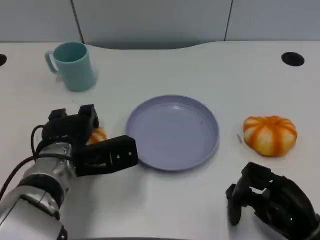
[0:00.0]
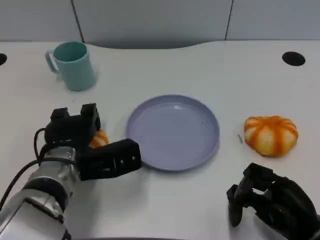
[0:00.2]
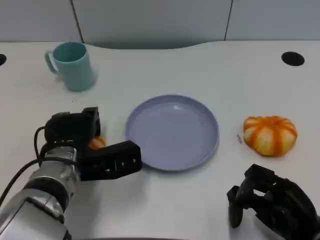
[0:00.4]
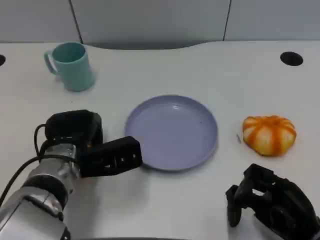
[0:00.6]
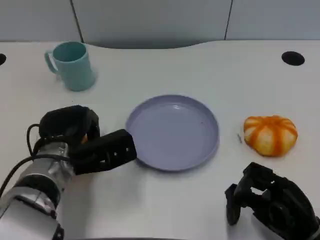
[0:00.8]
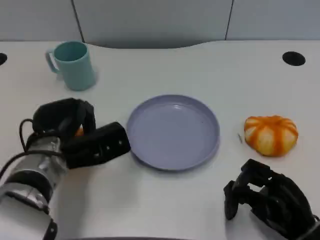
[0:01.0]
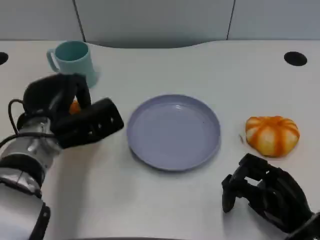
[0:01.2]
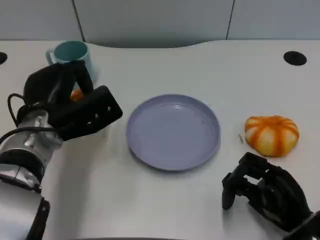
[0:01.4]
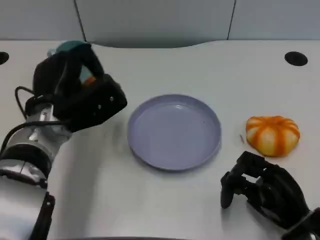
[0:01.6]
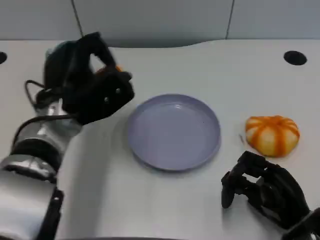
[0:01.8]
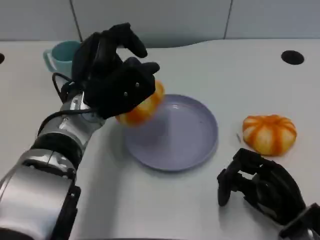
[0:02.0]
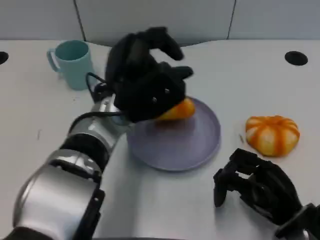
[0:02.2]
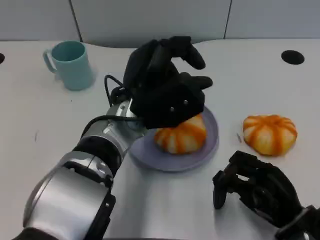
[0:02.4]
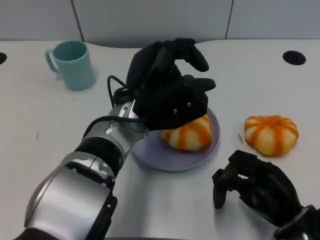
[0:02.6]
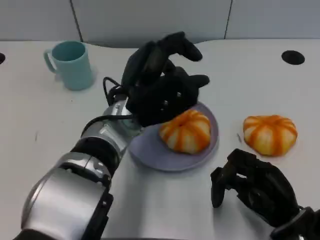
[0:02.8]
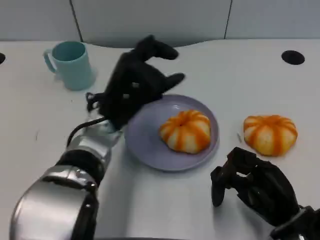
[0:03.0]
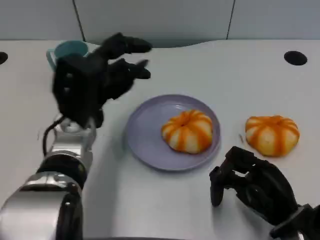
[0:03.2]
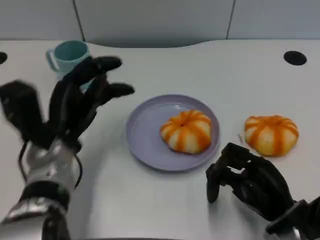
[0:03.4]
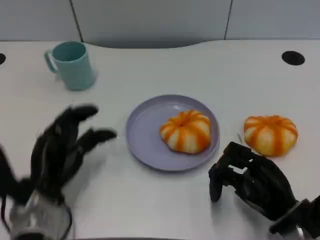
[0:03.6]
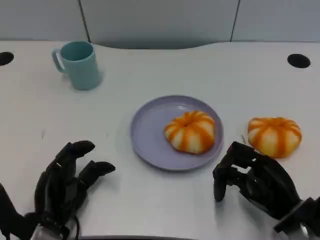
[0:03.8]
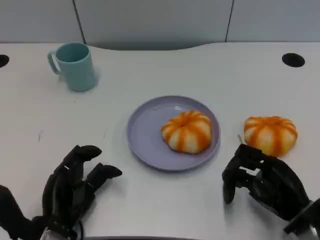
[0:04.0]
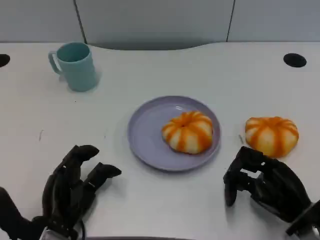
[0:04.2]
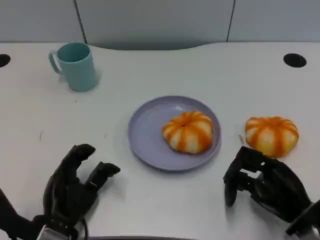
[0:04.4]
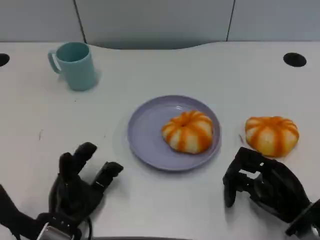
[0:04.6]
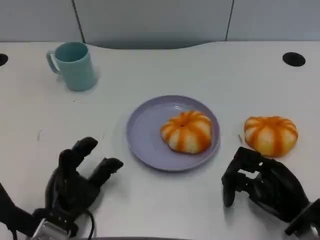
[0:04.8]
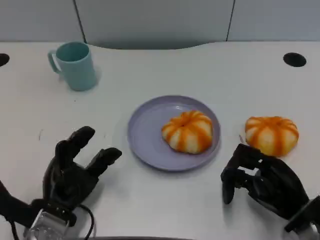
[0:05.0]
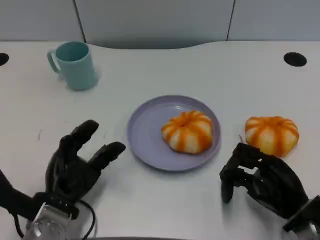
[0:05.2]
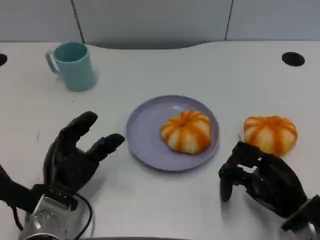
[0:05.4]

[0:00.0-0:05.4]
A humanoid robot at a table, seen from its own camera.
Task of the whole recording: Grasp the bread from the table and place it into the plate.
0:00.0 to 0:01.4: The left hand shifts by roughly 5 cm.
0:01.4 to 0:02.8: The left hand travels to the right by about 10 cm.
0:02.8 to 0:04.0: The left hand shifts roughly 20 cm downward, to the left and backward.
0:04.0 to 0:05.4: There are only small adjustments of the hands.

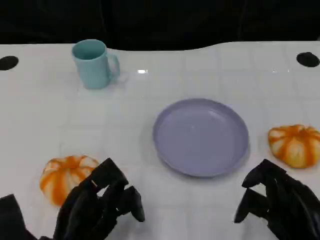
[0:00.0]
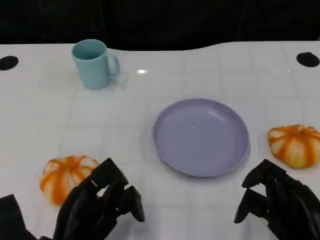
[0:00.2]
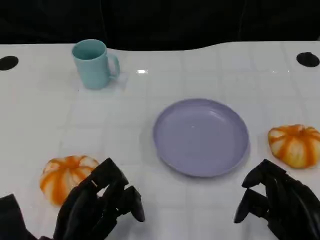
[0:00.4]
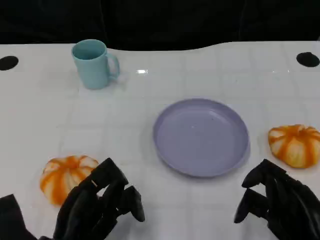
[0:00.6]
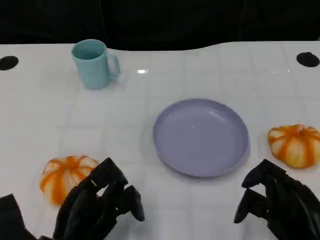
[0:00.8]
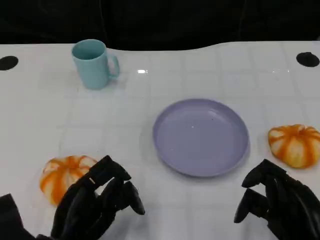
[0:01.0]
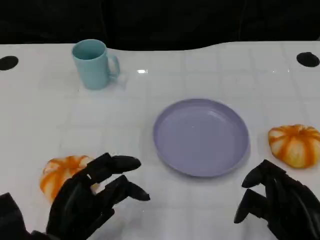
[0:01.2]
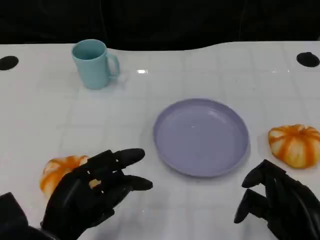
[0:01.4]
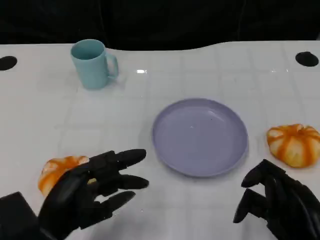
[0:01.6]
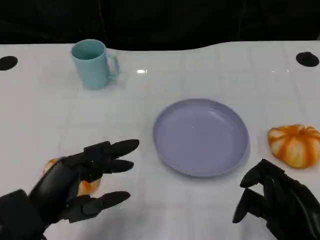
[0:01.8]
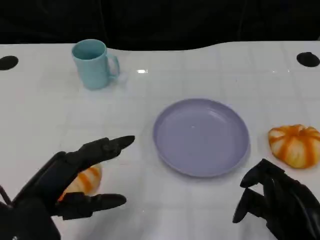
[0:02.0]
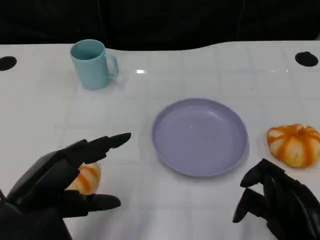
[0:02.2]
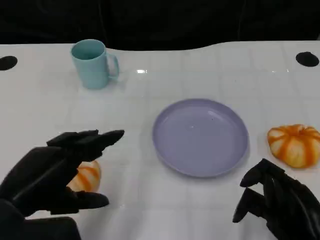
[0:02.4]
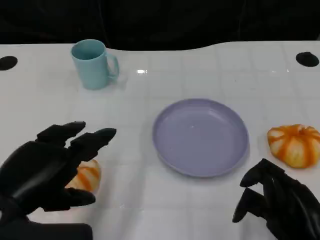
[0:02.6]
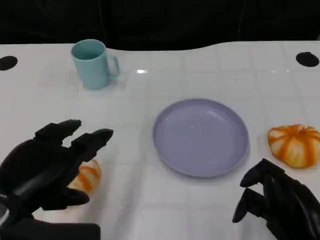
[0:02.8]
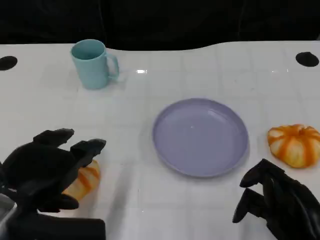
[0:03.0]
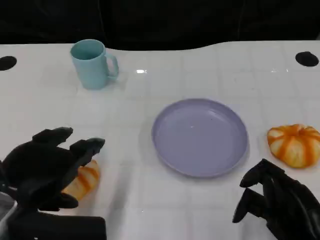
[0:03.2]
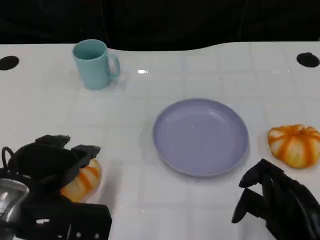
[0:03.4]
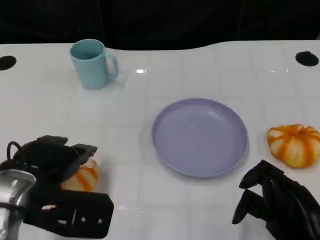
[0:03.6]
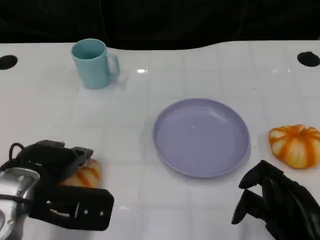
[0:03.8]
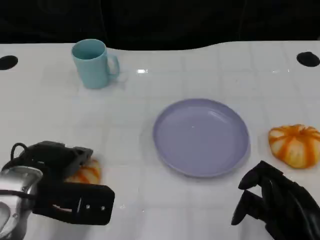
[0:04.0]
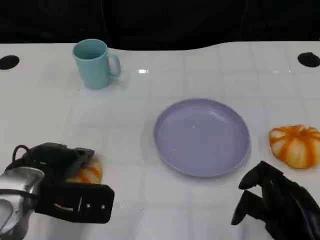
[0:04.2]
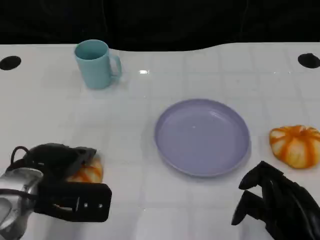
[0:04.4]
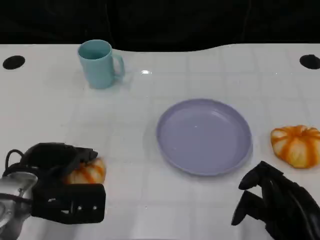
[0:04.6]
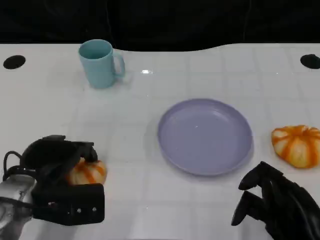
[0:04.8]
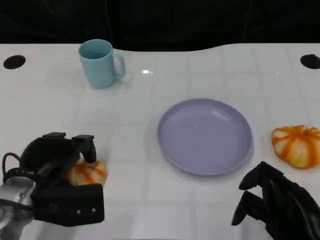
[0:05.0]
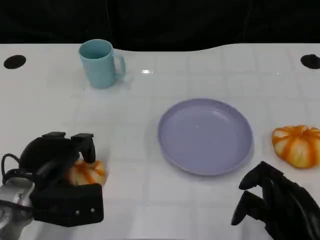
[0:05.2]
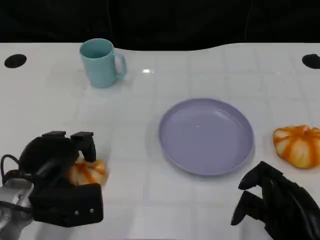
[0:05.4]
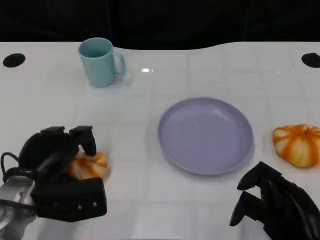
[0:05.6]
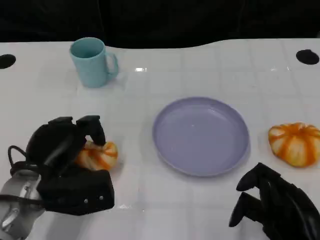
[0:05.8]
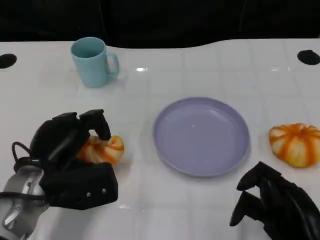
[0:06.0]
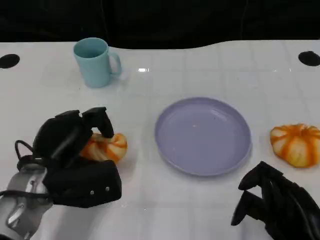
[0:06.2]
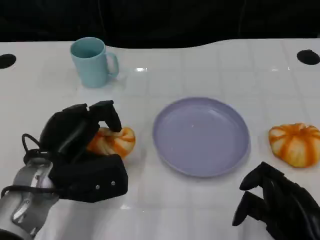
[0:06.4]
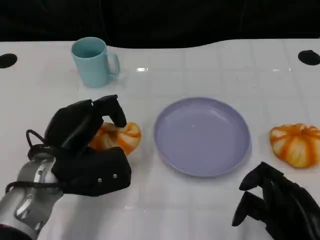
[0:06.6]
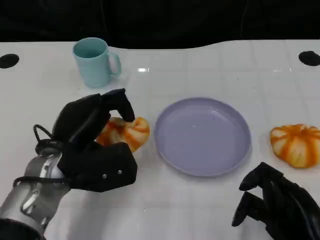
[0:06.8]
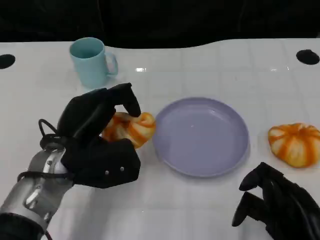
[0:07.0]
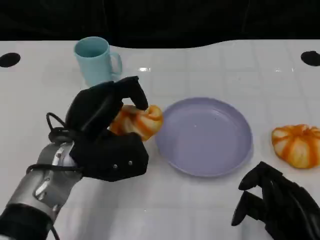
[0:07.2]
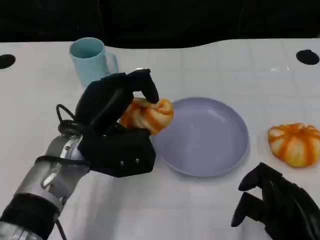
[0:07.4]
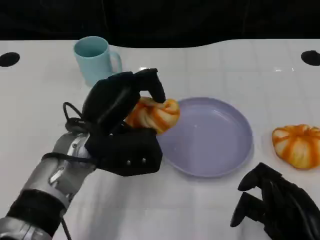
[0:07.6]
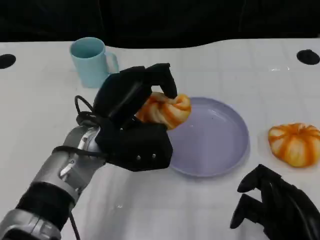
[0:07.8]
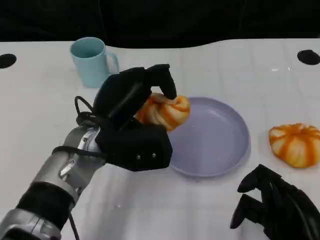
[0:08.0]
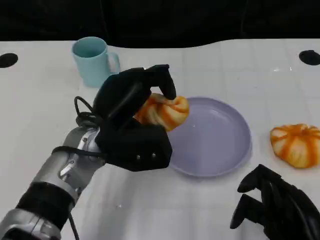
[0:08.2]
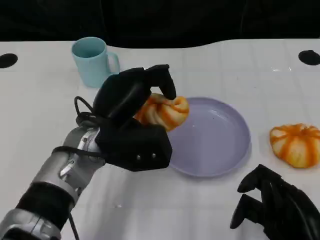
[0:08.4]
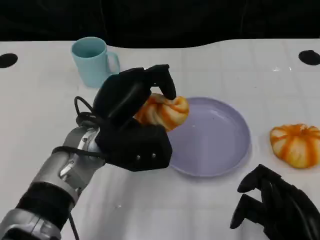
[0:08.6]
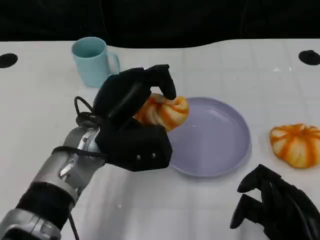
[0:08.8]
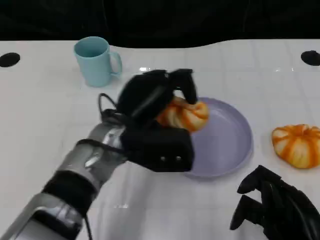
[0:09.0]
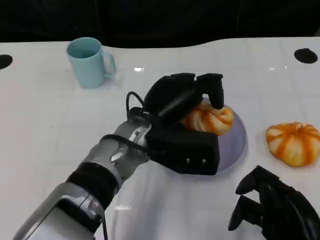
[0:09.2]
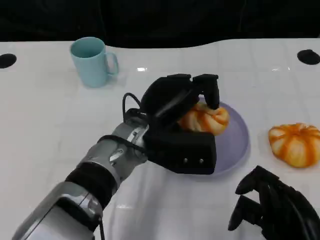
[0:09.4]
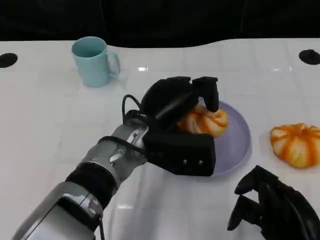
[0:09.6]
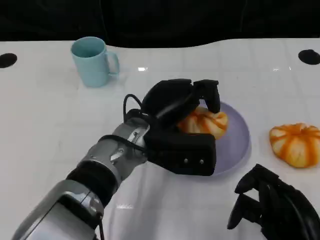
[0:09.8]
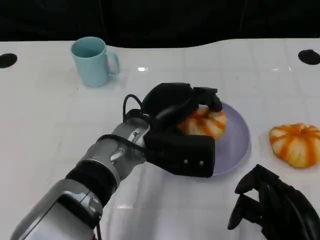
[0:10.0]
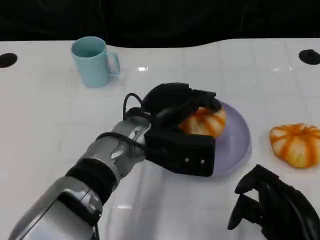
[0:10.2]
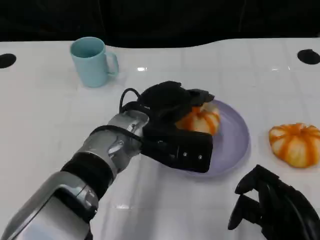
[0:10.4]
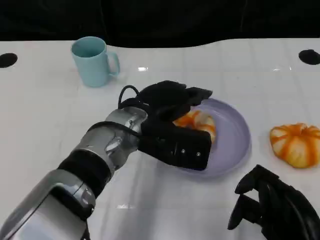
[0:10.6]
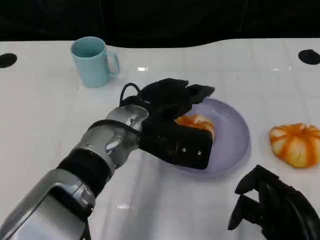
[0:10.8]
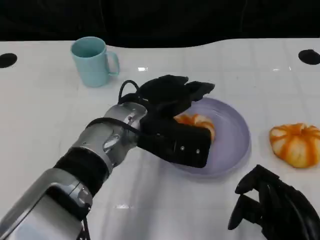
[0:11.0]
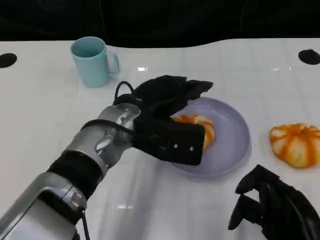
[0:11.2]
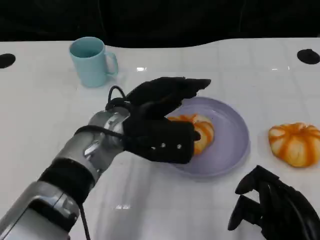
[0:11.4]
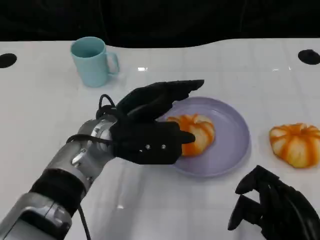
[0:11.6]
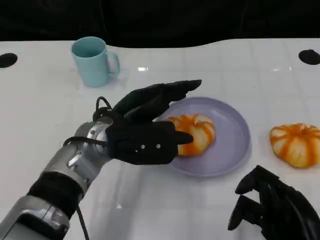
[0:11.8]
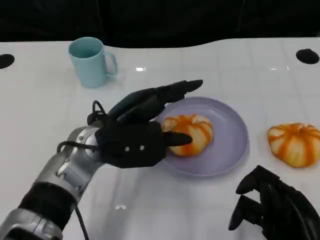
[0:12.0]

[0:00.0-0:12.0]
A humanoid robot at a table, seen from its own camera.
Task of the whole recording: Grasp the bread from the table and place it into the plate.
0:01.6 to 0:03.0: The left hand shifts approximately 10 cm upward.
0:03.0 to 0:04.4: The left hand moves forward and downward, about 10 cm.
0:06.0 to 0:07.6: The left hand shifts approximately 10 cm to the right.
0:07.6 to 0:09.0: The left hand shifts approximately 5 cm to the right.
0:10.4 to 0:12.0: The left hand is displaced to the left by some 5 cm.

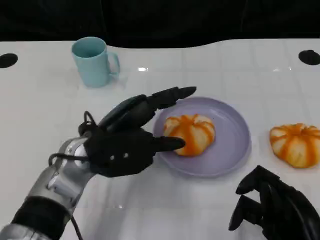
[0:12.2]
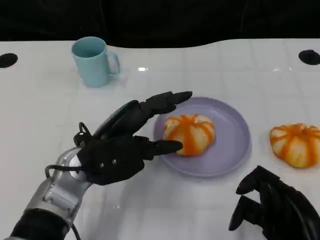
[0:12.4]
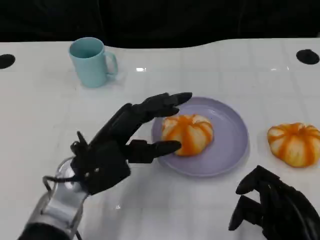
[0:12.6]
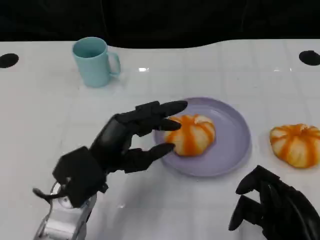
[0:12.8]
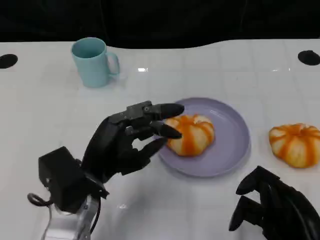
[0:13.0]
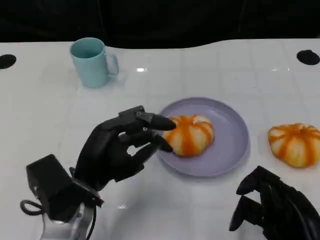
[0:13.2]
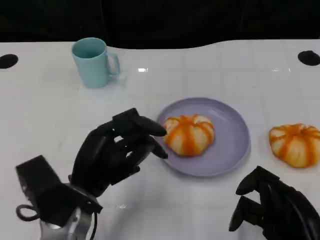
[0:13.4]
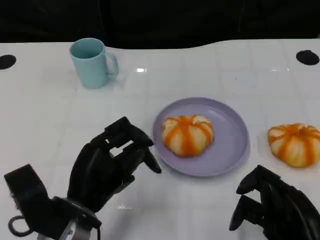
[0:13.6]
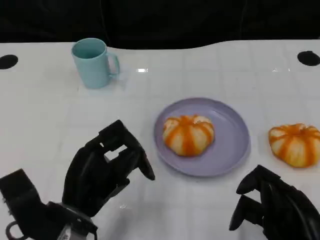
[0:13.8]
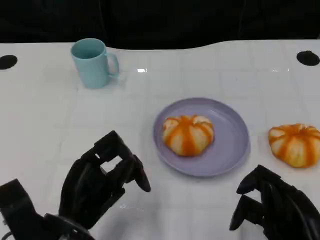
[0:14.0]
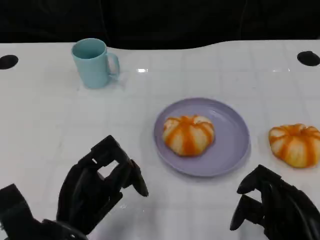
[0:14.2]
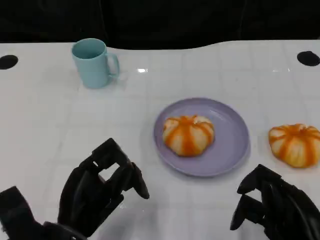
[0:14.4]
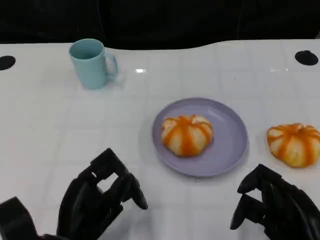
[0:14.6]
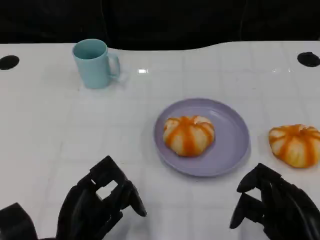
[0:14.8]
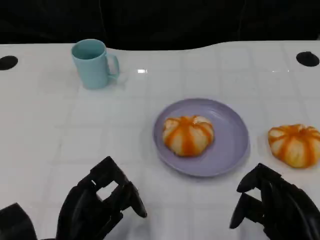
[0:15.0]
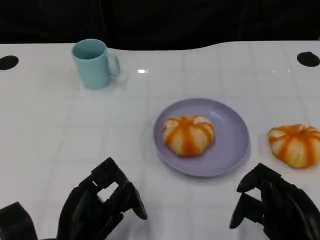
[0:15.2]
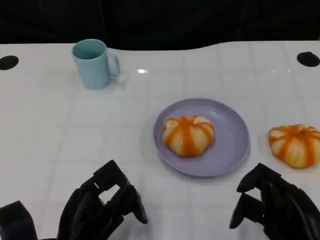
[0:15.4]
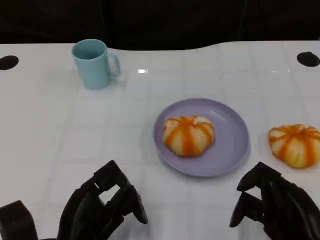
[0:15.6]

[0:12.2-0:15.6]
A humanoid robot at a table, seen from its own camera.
Task of the whole recording: Grasp the bread from the table and place it into the plate.
0:12.2 to 0:13.8: The left hand shifts roughly 10 cm backward.
0:13.8 to 0:15.6: The hands stay close to where they were, moving slightly.

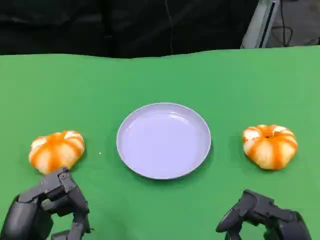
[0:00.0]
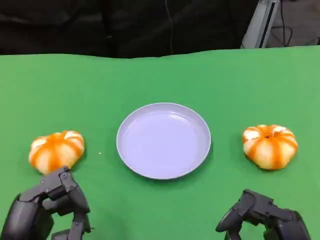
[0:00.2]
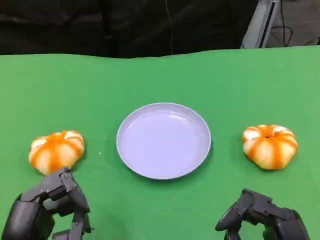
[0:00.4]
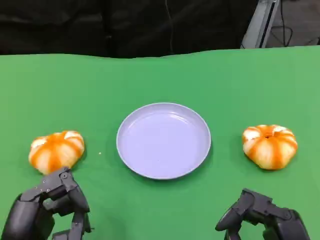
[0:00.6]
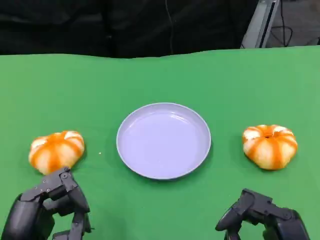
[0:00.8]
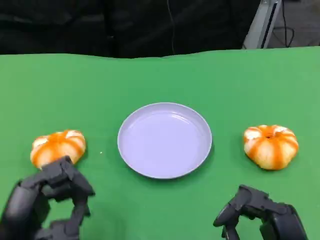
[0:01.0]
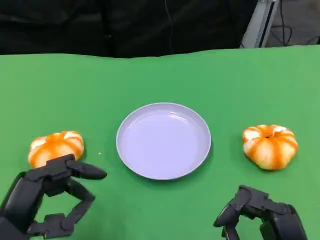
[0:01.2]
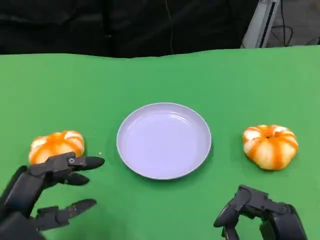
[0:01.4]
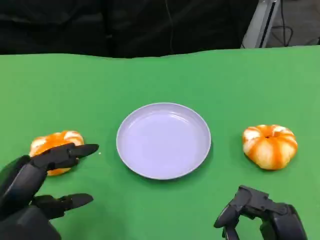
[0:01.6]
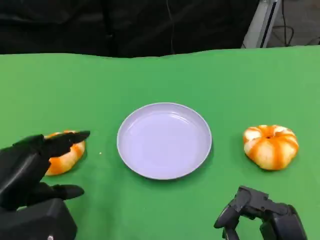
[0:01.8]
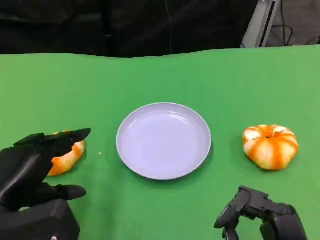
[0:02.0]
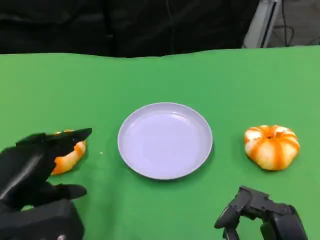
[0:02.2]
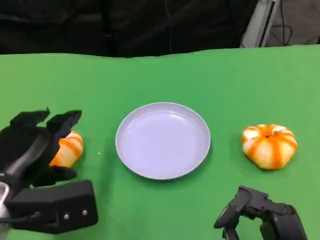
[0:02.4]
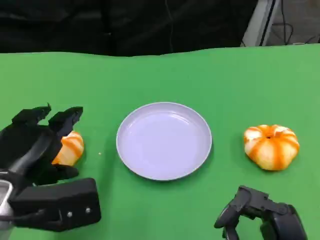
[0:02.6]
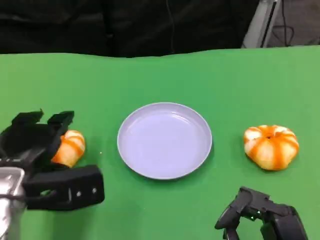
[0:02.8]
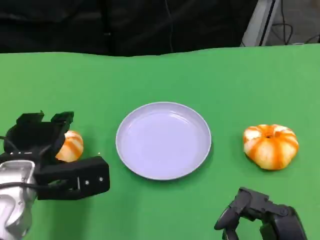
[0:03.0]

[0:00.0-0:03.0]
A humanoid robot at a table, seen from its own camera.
Task of the whole recording: Grasp the bread from the table and place it into the plate.
0:00.0 to 0:01.6: The left hand shifts by roughly 5 cm.
0:01.6 to 0:03.0: The left hand shifts about 10 cm forward.
